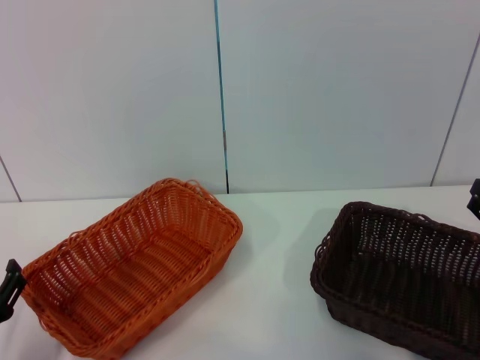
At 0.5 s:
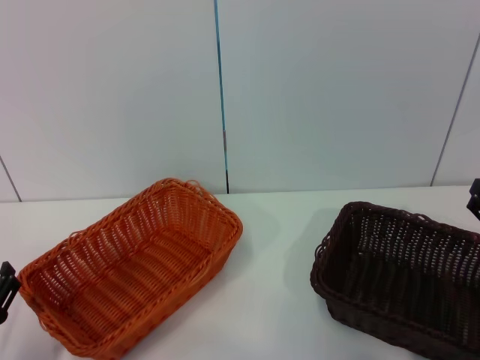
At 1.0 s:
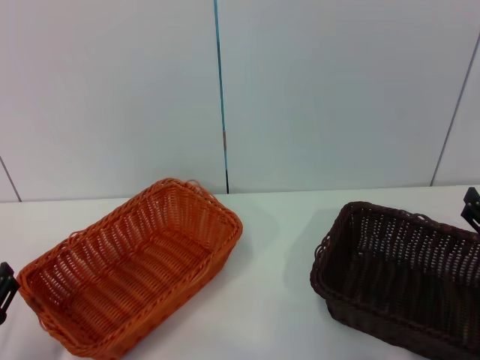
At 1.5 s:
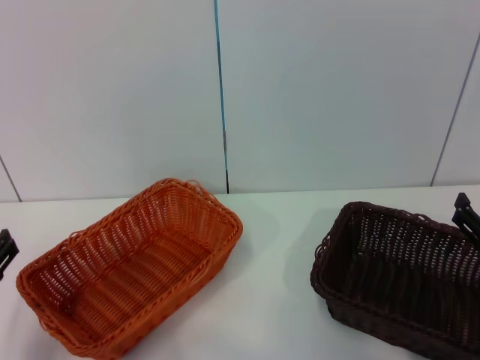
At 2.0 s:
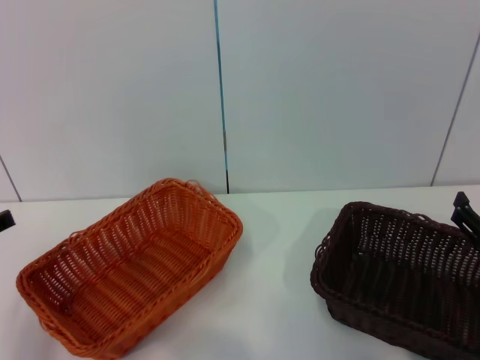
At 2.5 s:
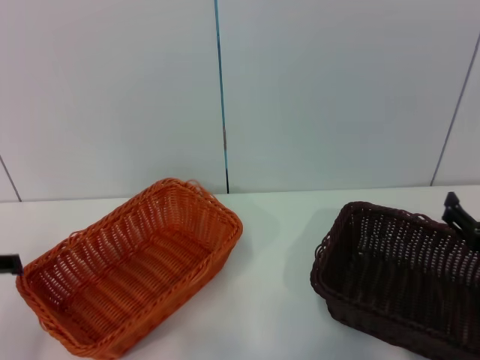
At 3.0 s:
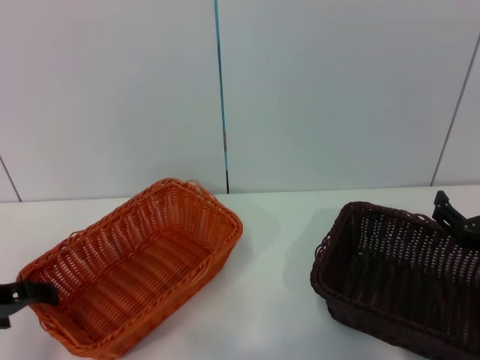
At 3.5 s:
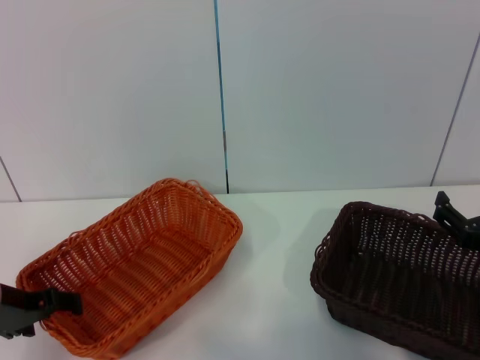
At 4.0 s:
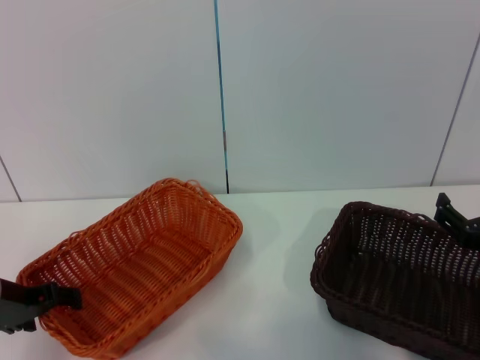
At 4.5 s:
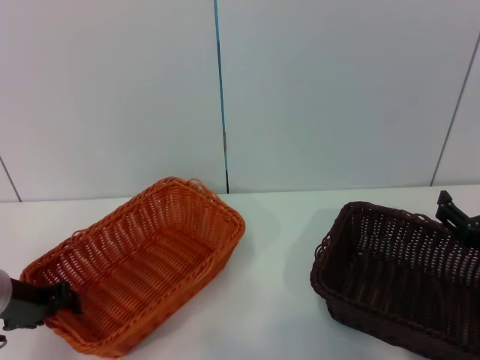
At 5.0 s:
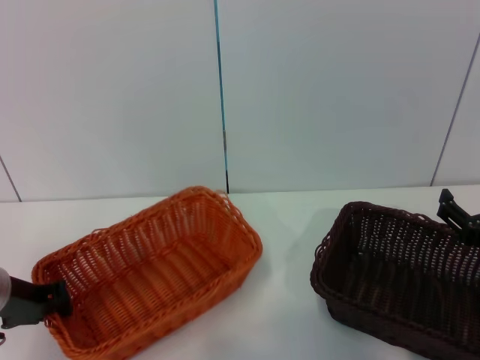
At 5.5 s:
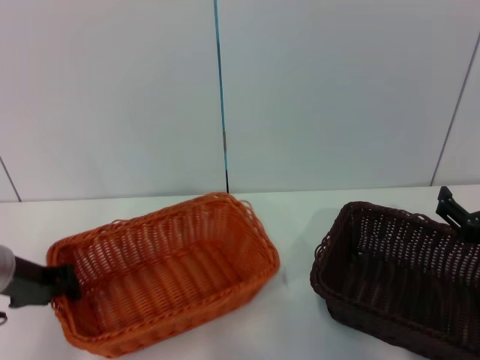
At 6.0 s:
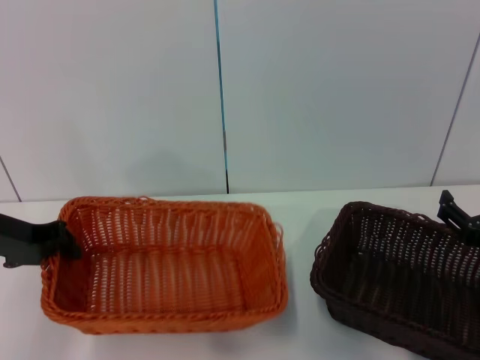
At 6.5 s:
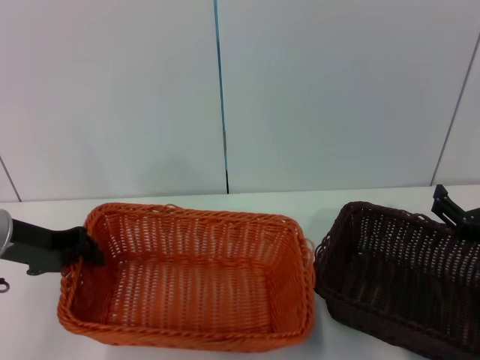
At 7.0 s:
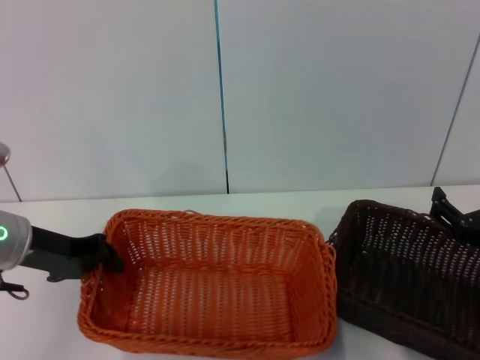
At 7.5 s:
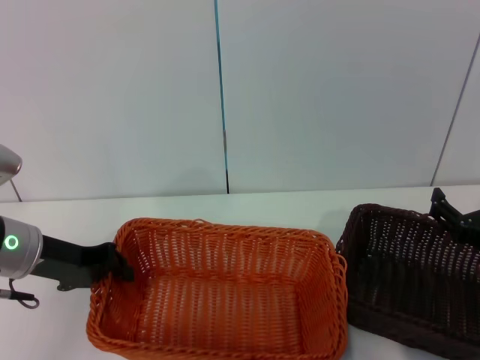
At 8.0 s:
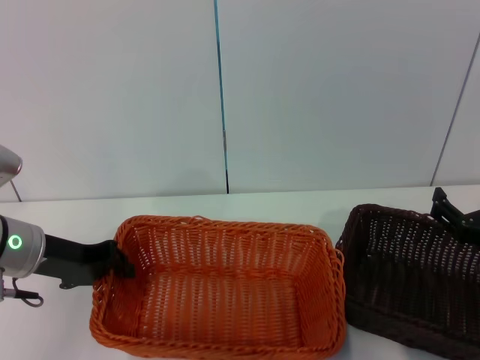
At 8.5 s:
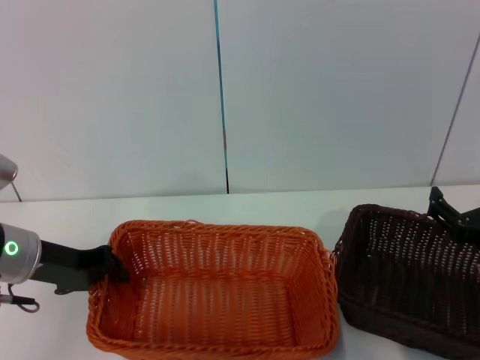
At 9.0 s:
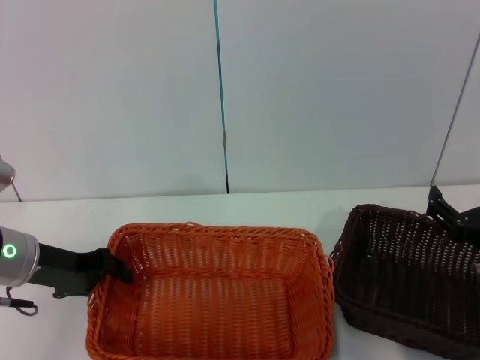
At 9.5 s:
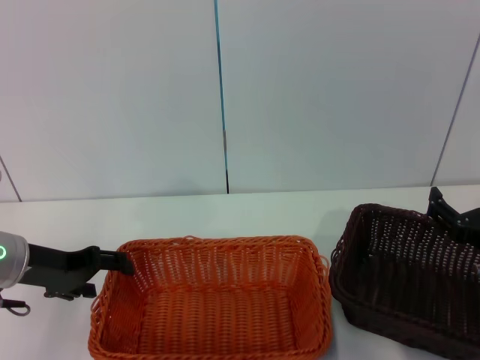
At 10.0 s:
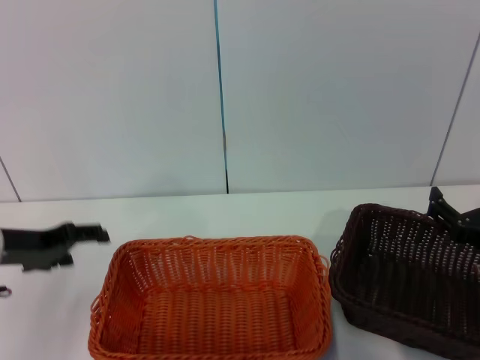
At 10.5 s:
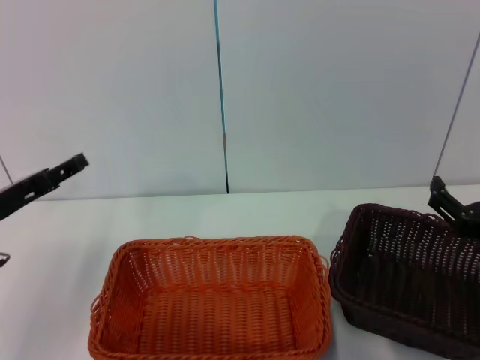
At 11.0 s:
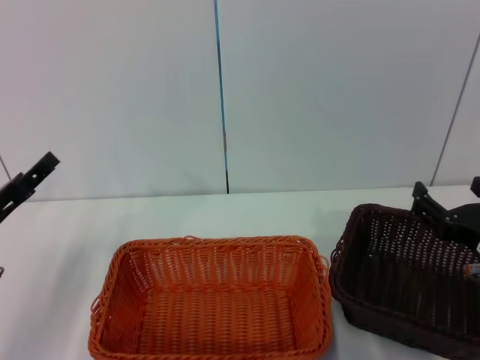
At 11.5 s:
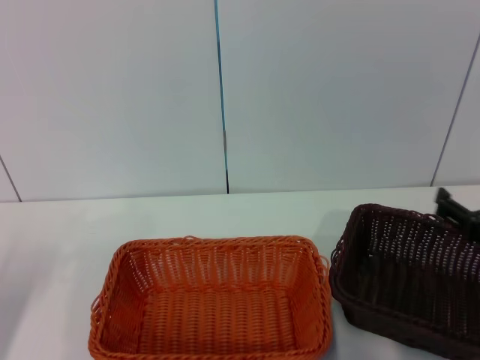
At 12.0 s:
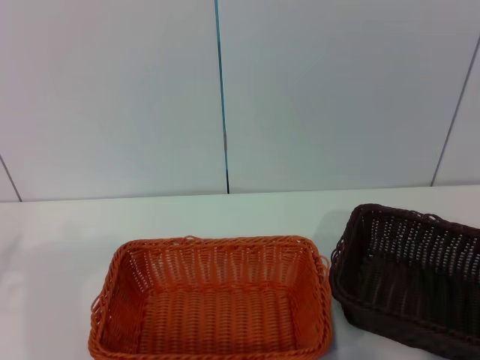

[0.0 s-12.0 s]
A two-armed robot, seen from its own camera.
Step, 0.0 to 6.0 s: Pick up the light basket with the left gripper.
Step, 6.5 to 9.0 s: Place the light basket in the center of view with the left gripper.
0.0 to 2.0 s: The left gripper is displaced upward and forward by about 15 cm.
2.0 to 4.0 s: The left gripper is displaced forward and downward by some 10 cm.
4.0 to 6.0 s: The left gripper is displaced upward by roughly 5 cm, and closes up.
6.0 to 8.0 s: The grippers make only small movements.
8.0 to 10.0 s: The left gripper opens.
10.0 to 12.0 s: The right gripper goes some 5 cm to the right; the left gripper moves to the left and backward, some 15 cm.

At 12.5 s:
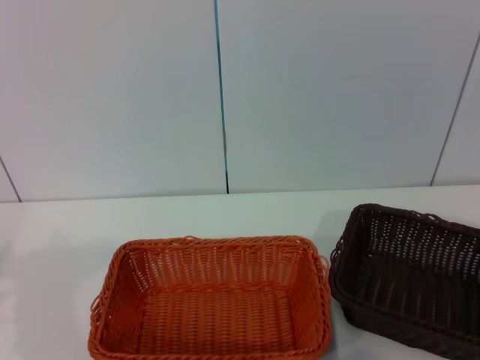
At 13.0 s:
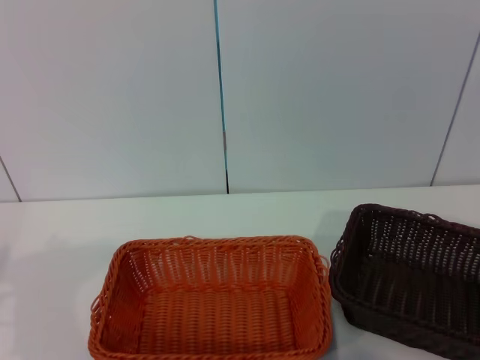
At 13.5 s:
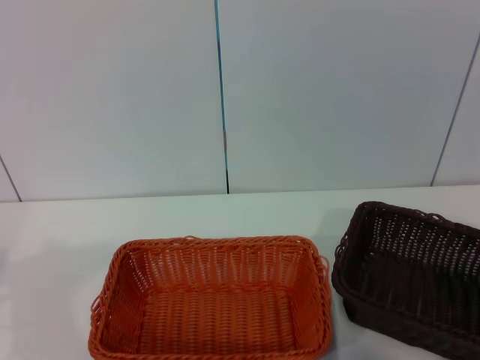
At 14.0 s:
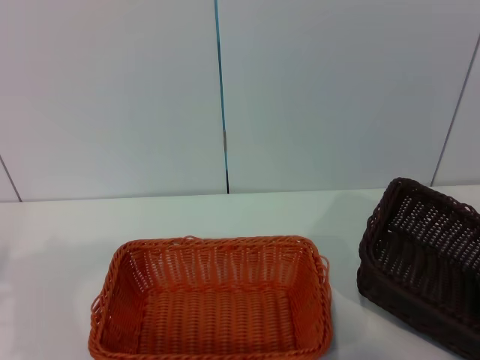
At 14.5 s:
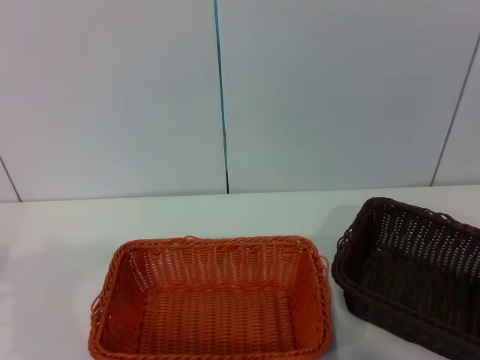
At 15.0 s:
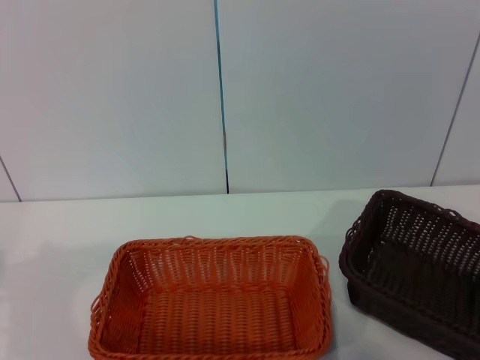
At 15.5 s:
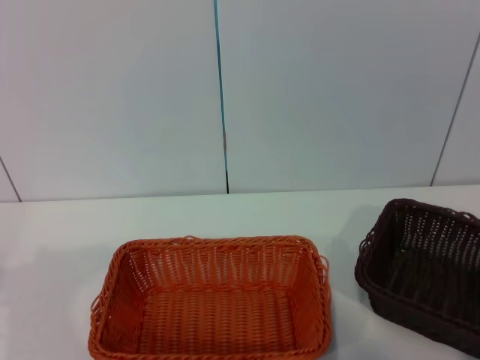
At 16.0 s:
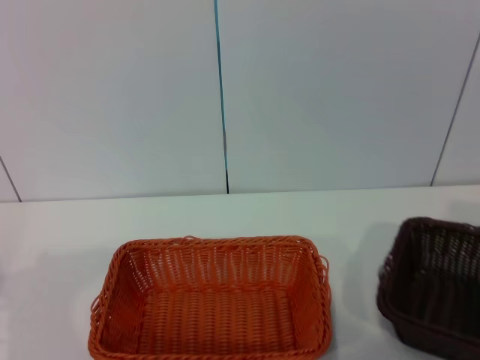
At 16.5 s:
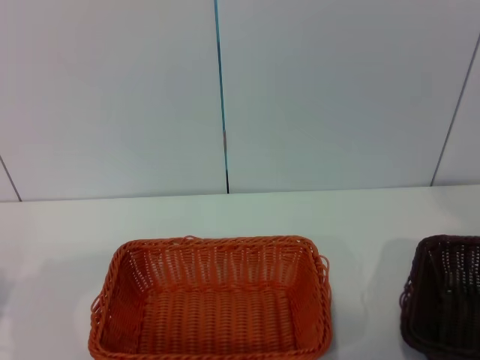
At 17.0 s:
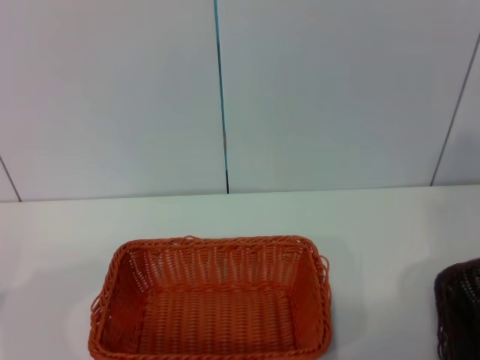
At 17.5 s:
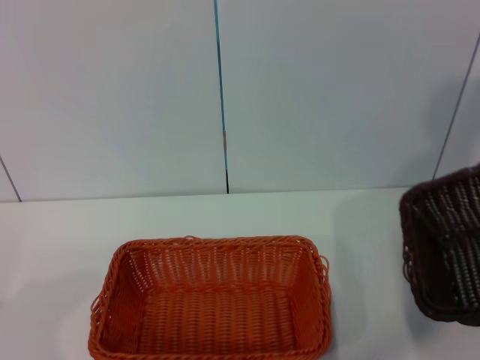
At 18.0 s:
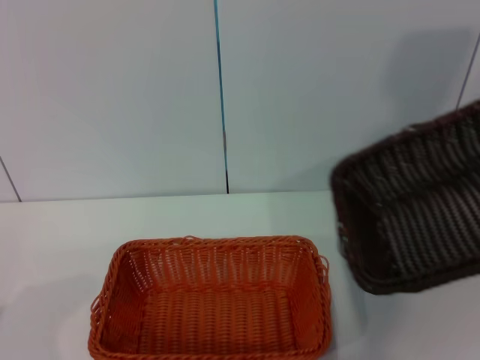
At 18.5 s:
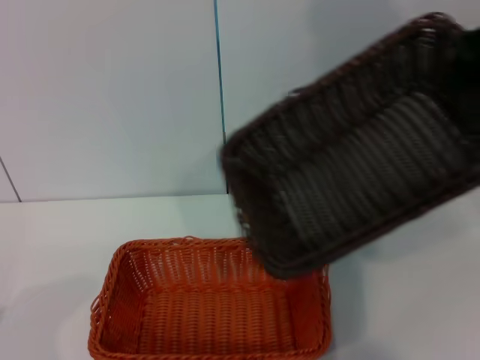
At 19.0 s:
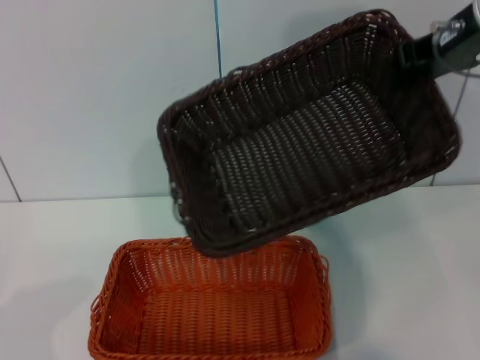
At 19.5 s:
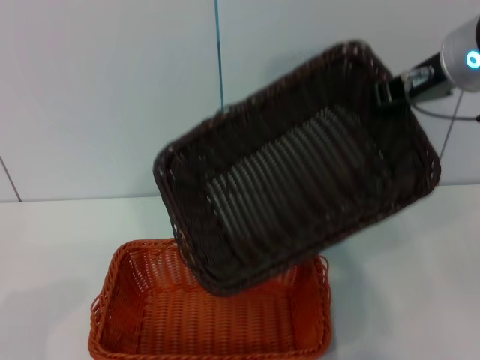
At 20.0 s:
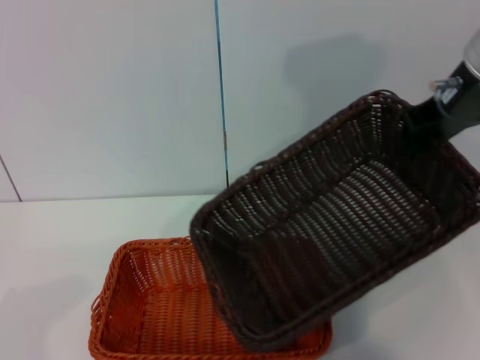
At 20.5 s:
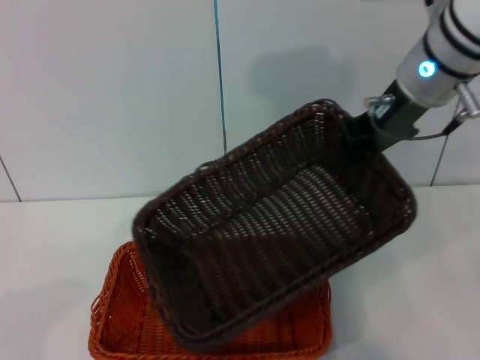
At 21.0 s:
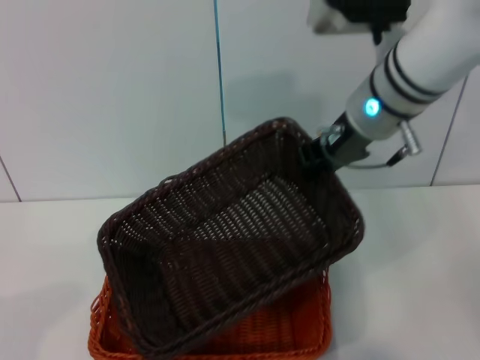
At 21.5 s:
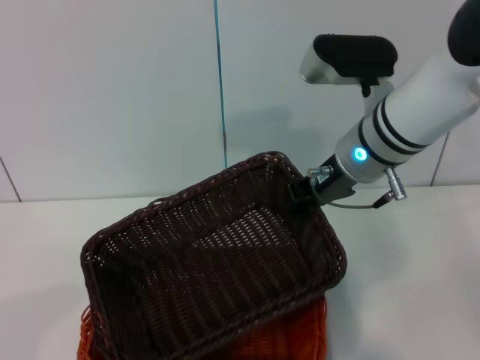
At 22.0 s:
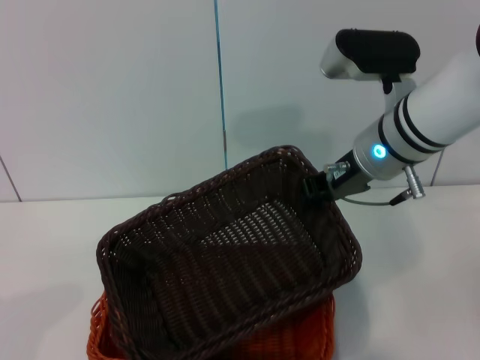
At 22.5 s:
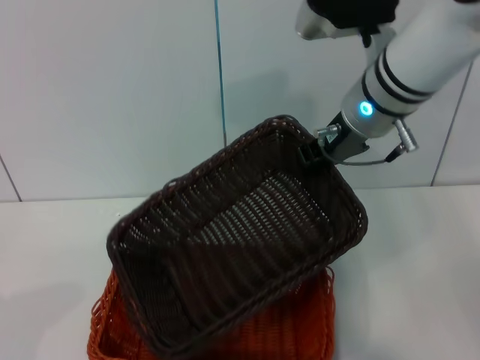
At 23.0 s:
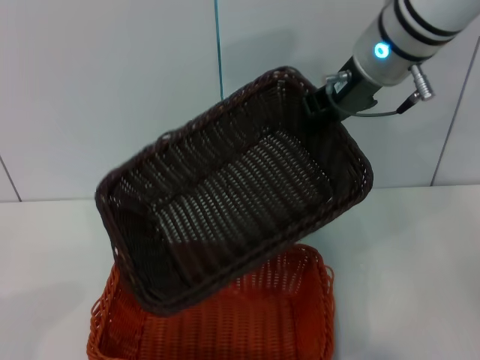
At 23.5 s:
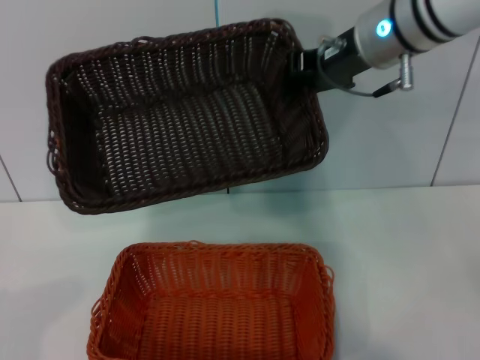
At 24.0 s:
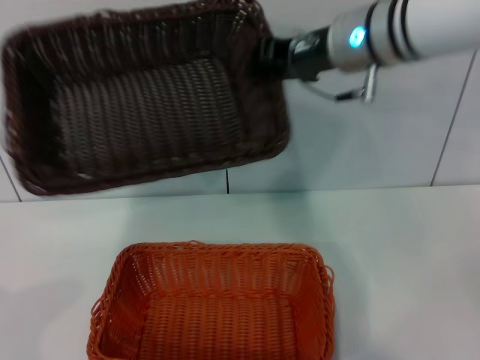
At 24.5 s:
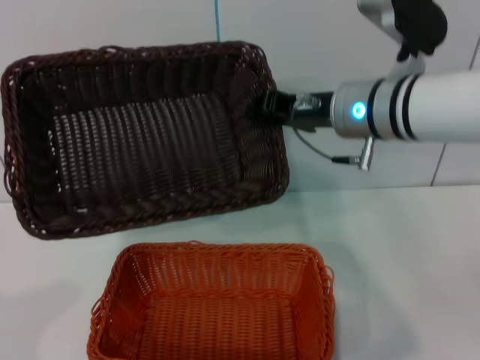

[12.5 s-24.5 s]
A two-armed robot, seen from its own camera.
Step, 12.5 to 17.0 s: Pick up the dark basket with the right gripper.
12.5 to 14.5 s: The right gripper is displaced downward by roughly 5 cm.
14.5 to 16.5 s: The right gripper moves upward and to the right, some 10 cm, and closes its fingers.
16.5 to 18.5 s: The right gripper shifts approximately 30 cm to the left and upward.
18.5 to 20.5 s: The right gripper travels downward and to the left by about 10 cm.

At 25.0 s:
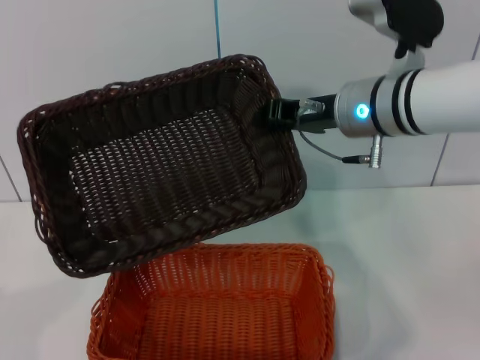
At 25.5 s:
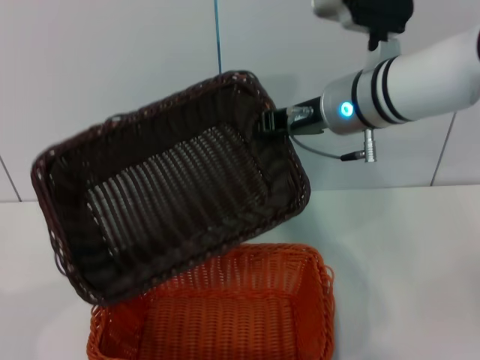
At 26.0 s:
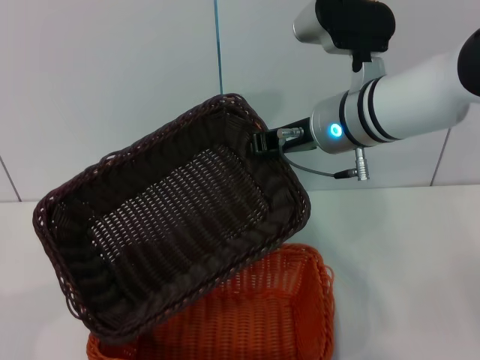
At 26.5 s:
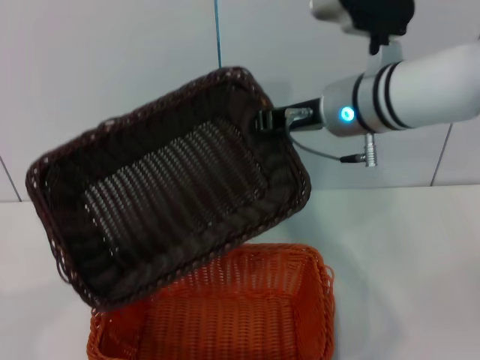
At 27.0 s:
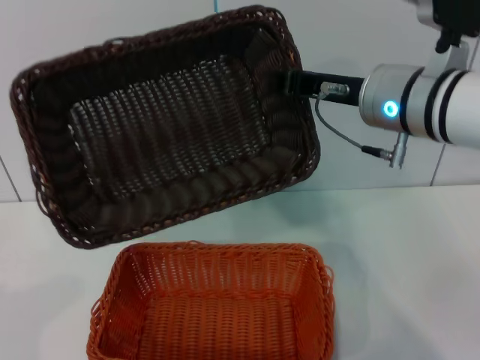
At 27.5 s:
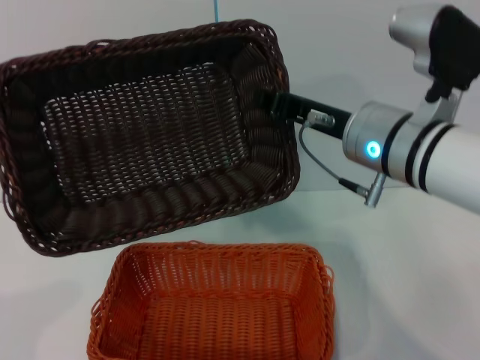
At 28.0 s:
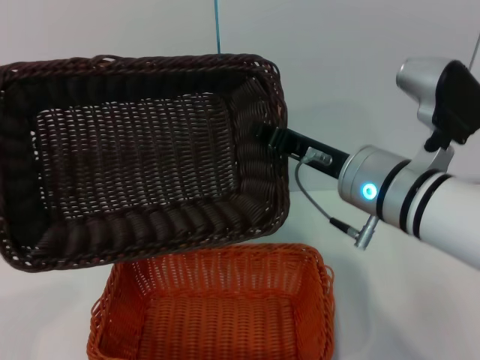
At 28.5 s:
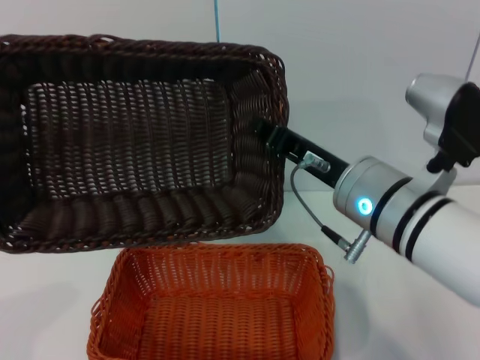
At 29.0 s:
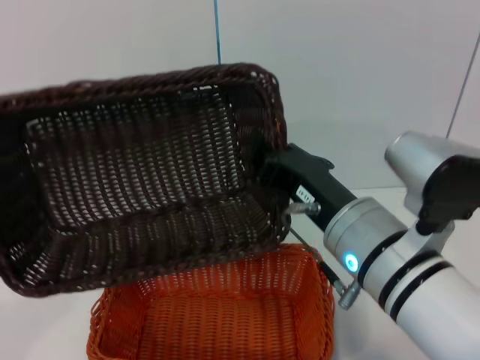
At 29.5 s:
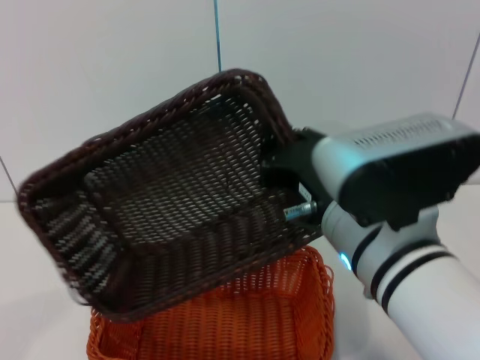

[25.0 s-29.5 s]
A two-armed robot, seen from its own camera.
27.0 to 29.5 s: The right gripper moves backward, downward and to the left, about 15 cm.
